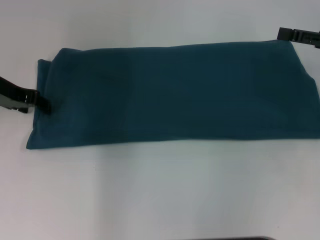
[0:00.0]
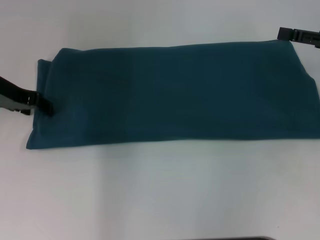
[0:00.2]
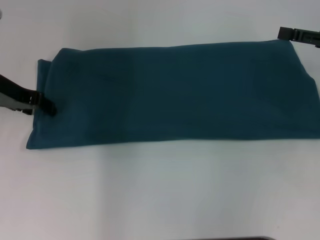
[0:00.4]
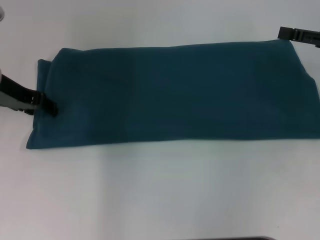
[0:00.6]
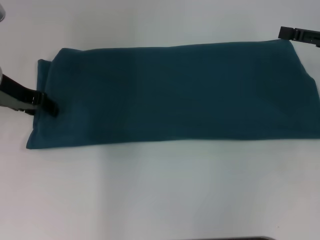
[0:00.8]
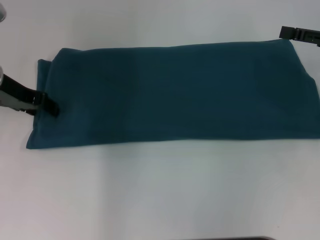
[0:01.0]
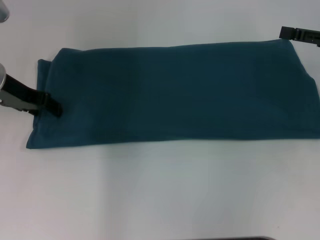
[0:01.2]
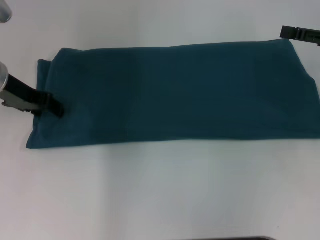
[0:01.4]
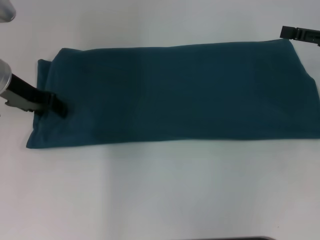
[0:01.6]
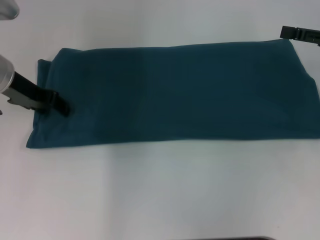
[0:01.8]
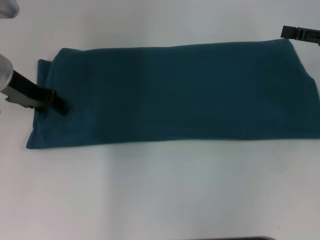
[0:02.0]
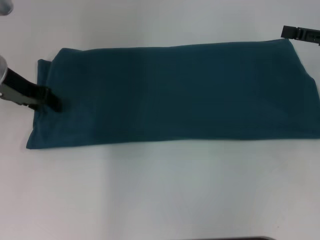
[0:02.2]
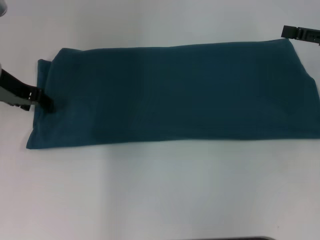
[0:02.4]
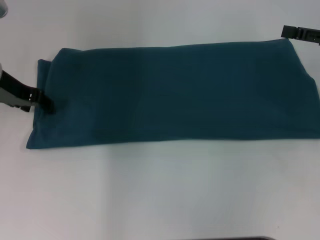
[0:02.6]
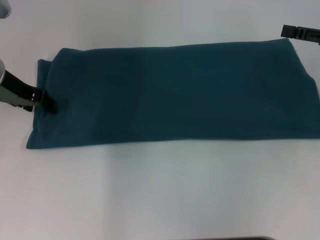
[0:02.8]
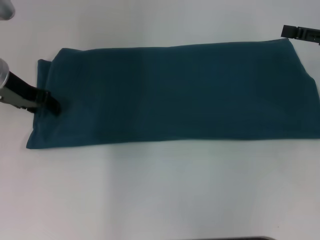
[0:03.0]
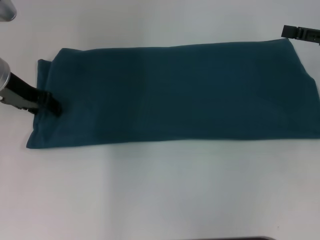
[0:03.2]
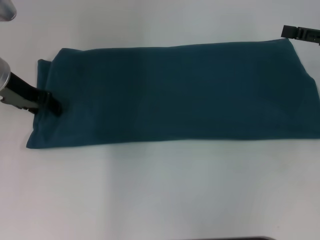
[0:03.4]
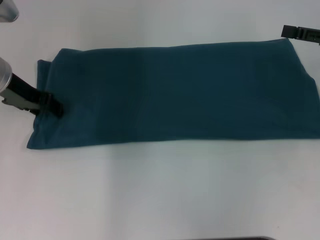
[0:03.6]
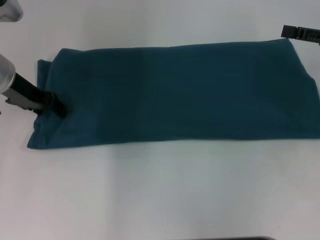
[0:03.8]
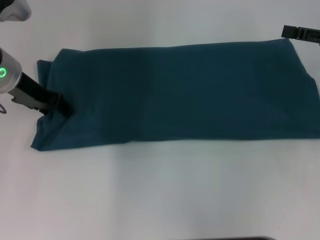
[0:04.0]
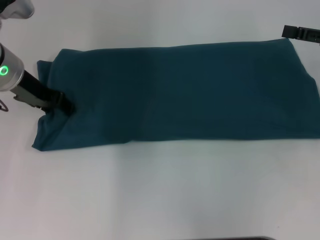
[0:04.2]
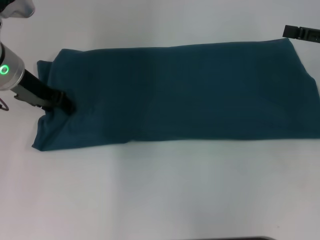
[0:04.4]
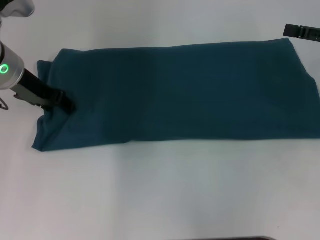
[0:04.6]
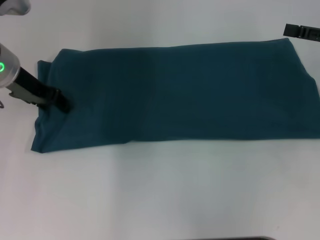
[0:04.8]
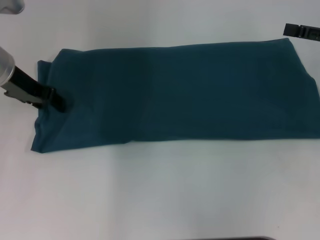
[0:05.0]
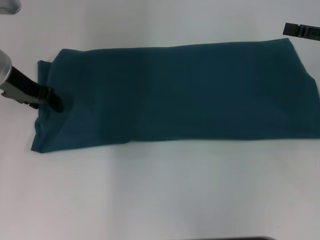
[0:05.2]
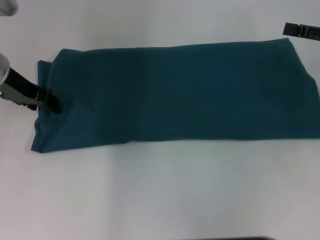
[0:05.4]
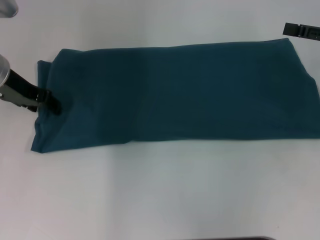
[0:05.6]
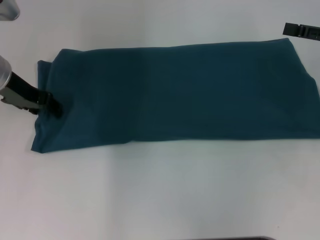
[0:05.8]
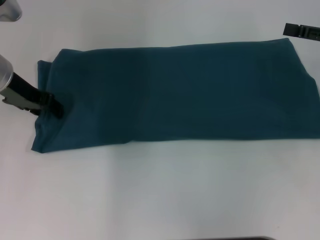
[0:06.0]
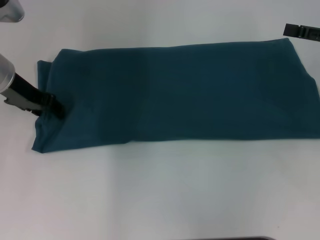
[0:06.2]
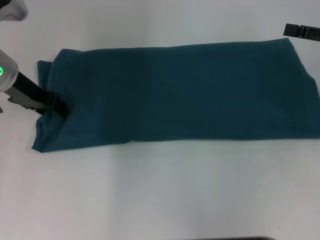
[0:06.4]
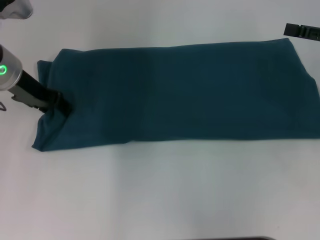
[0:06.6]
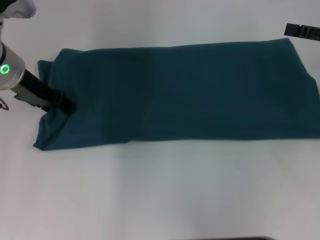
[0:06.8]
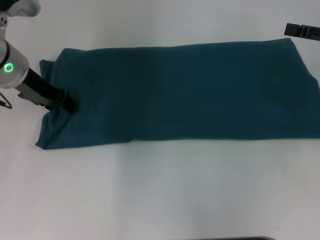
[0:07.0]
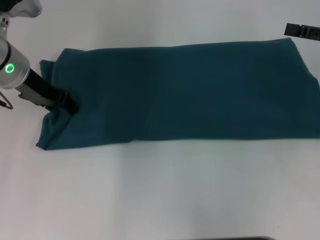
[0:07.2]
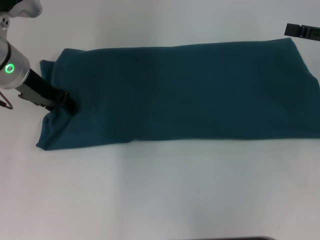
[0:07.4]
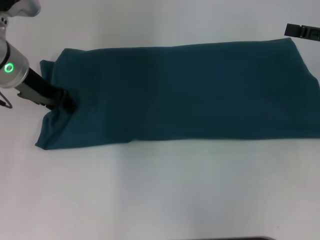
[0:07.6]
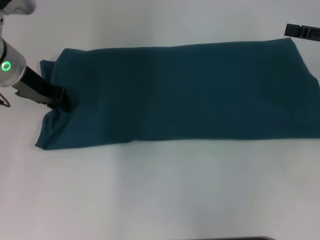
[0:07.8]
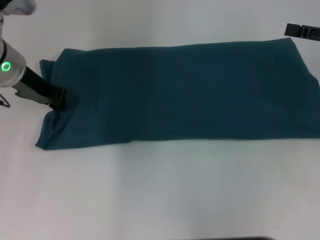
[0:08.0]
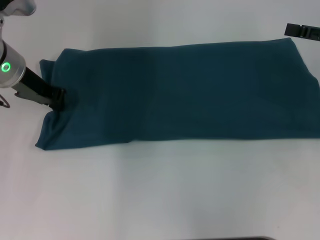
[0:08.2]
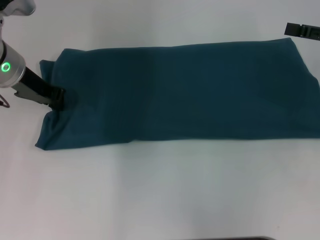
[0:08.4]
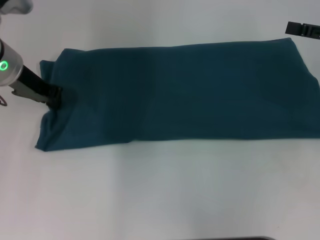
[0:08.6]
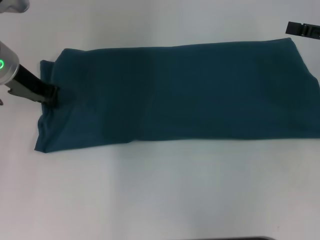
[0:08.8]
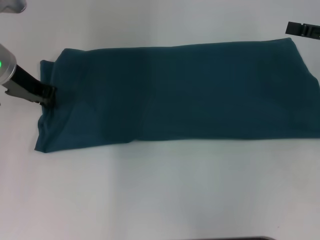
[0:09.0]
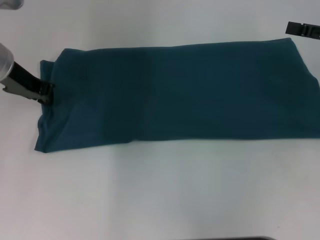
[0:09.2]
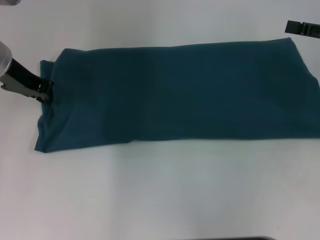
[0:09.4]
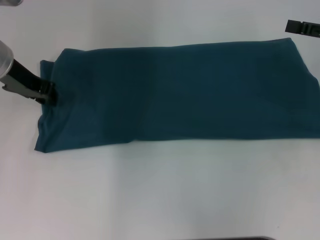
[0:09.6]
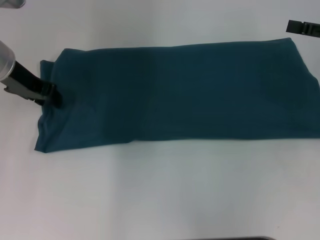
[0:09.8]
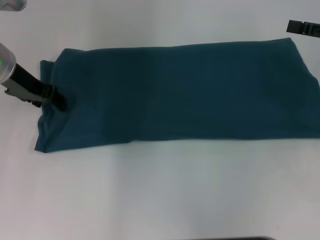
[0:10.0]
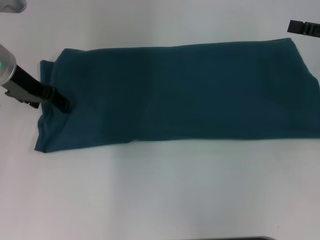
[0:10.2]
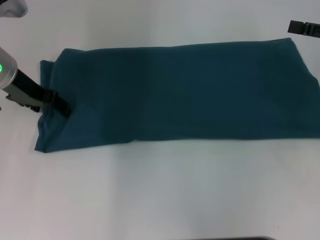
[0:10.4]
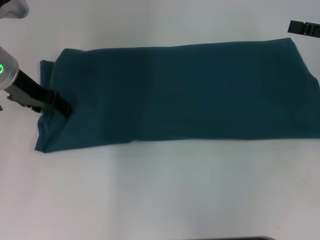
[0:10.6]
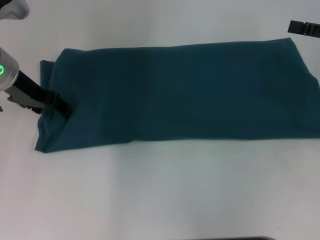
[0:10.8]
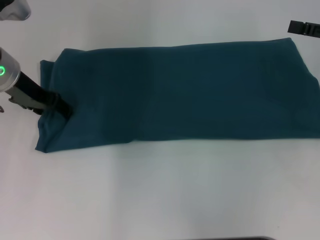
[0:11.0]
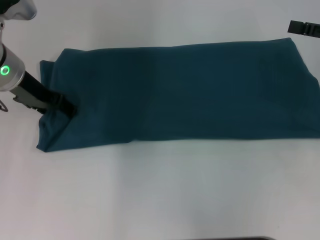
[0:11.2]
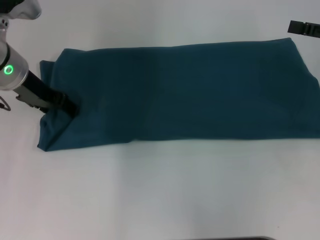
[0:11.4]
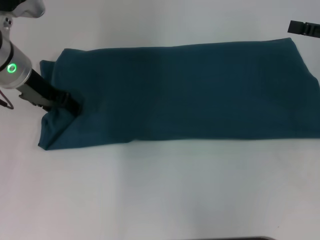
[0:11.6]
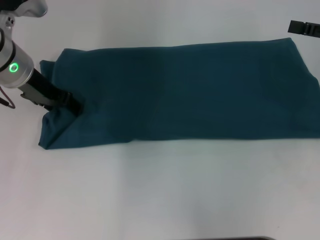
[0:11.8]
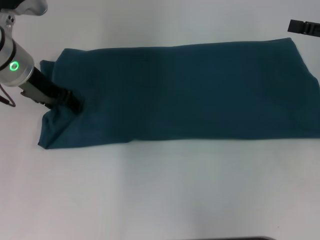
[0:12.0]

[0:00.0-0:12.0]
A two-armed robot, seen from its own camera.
0:00.0 to 0:01.6: The grippers stay close to where they were, moving slightly.
0:01.6 to 0:03.0: Both grippers stay put.
0:03.0 to 0:07.6: The grippers make only small movements.
0:07.6 to 0:09.0: The left gripper closes up.
0:09.0 to 0:10.4: The left gripper opens up.
0:10.4 to 0:12.0: The grippers stay close to where they were, moving slightly.

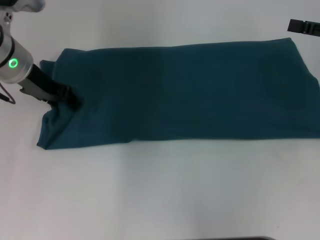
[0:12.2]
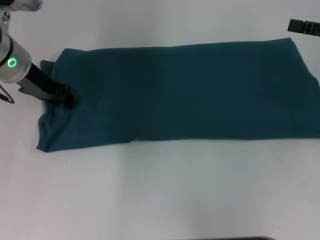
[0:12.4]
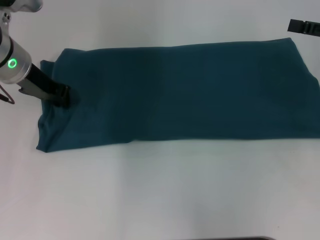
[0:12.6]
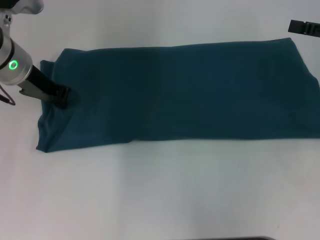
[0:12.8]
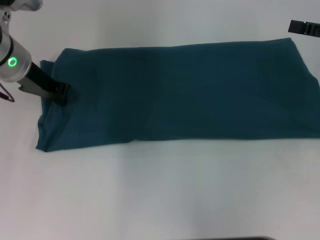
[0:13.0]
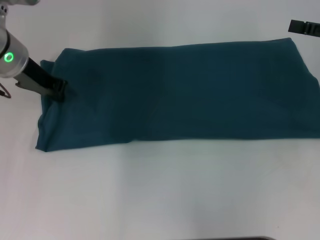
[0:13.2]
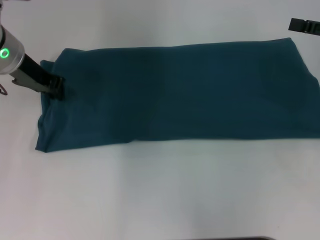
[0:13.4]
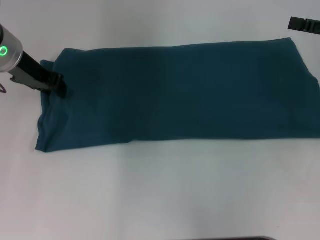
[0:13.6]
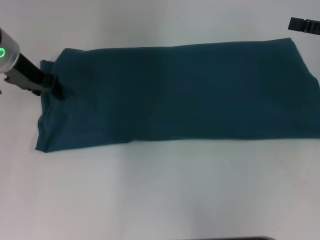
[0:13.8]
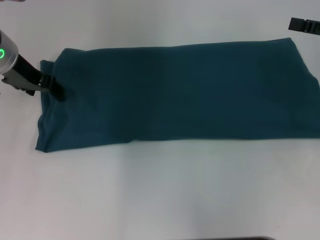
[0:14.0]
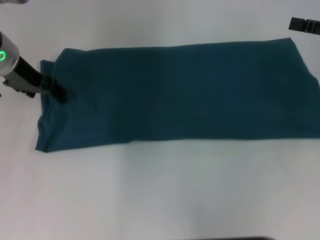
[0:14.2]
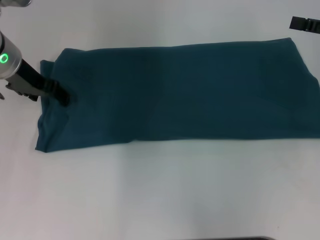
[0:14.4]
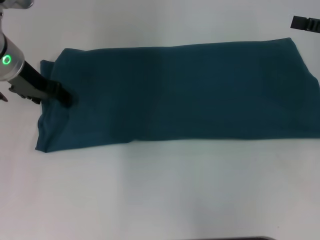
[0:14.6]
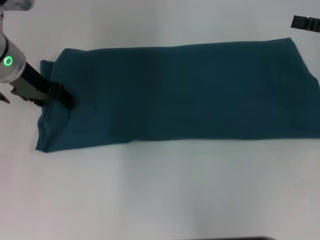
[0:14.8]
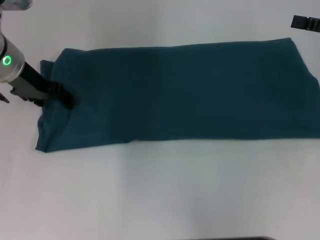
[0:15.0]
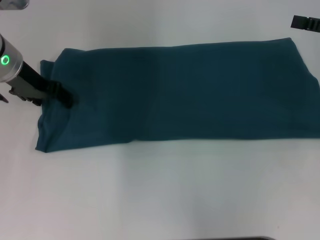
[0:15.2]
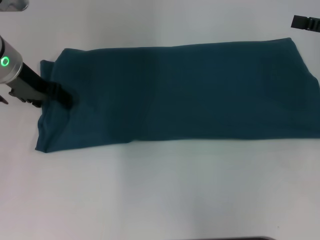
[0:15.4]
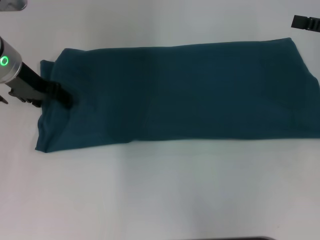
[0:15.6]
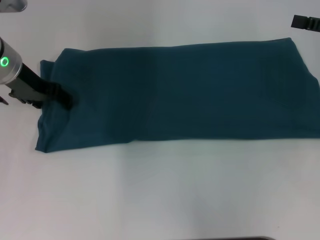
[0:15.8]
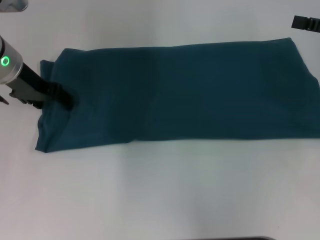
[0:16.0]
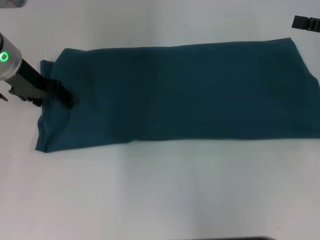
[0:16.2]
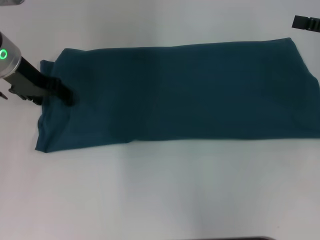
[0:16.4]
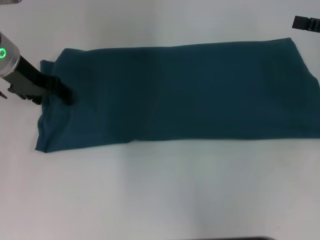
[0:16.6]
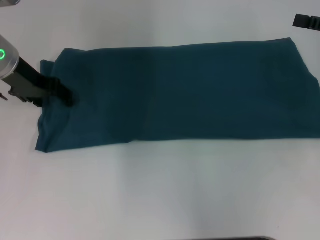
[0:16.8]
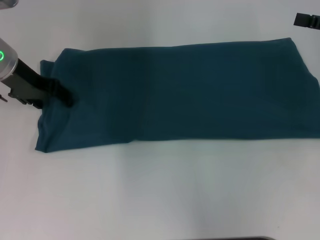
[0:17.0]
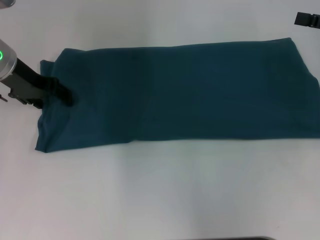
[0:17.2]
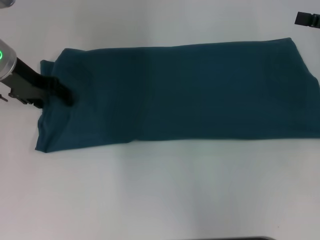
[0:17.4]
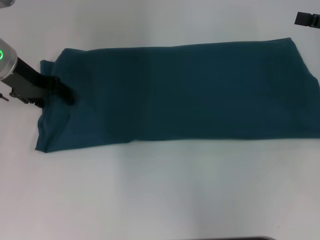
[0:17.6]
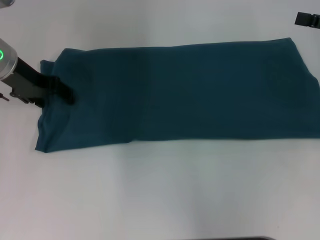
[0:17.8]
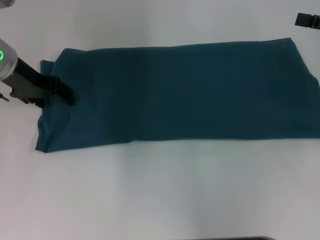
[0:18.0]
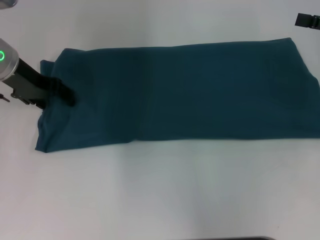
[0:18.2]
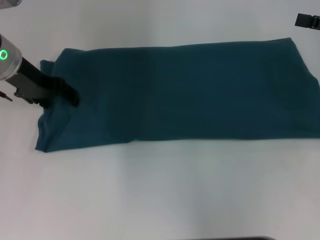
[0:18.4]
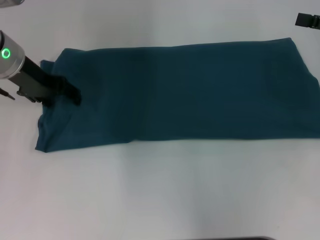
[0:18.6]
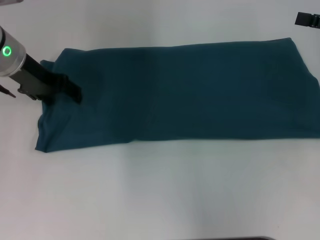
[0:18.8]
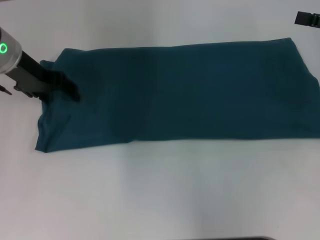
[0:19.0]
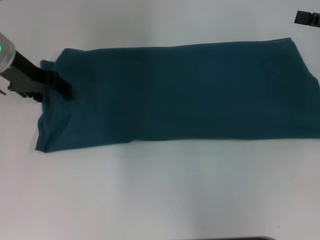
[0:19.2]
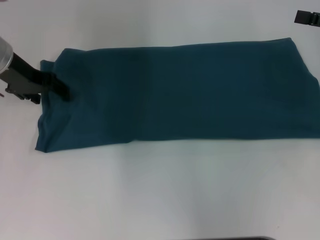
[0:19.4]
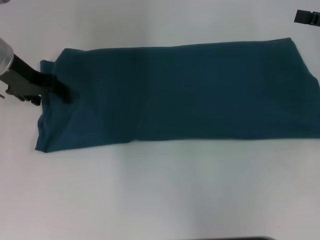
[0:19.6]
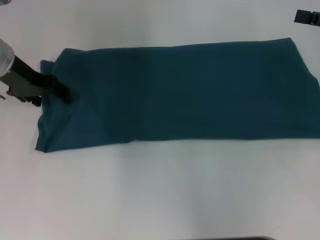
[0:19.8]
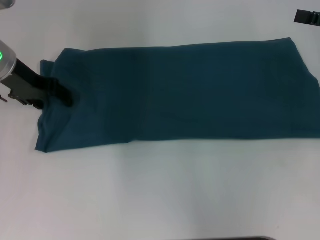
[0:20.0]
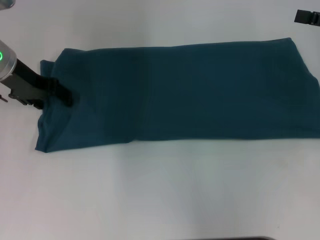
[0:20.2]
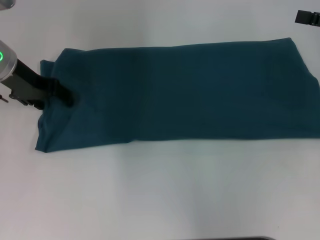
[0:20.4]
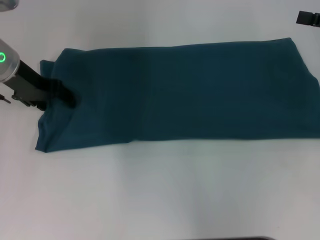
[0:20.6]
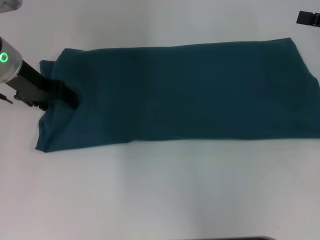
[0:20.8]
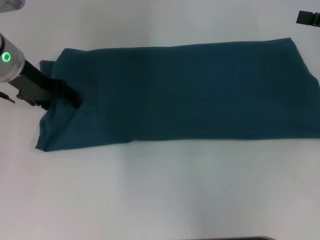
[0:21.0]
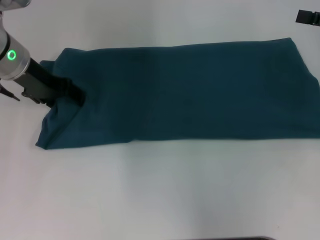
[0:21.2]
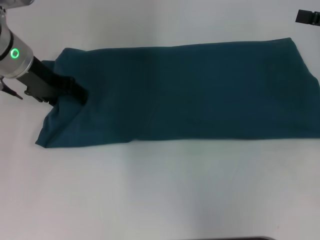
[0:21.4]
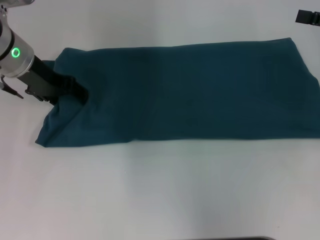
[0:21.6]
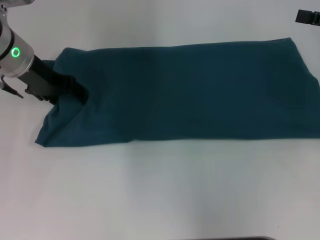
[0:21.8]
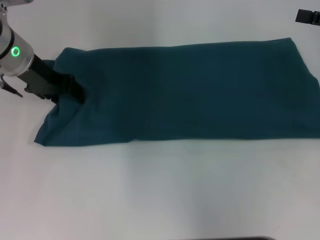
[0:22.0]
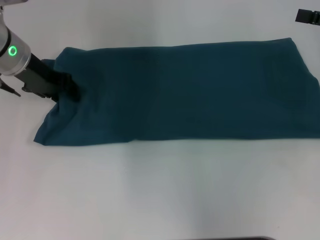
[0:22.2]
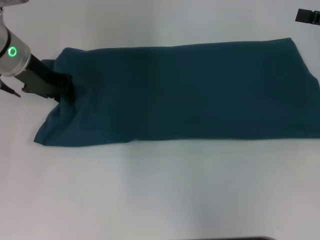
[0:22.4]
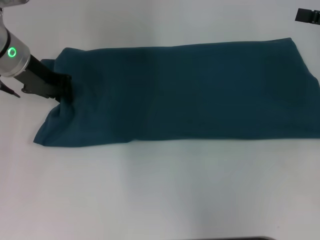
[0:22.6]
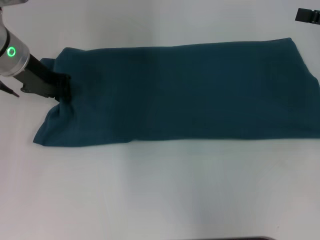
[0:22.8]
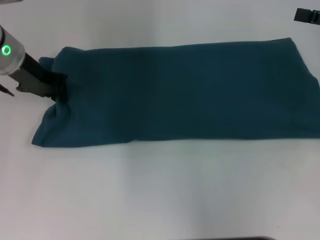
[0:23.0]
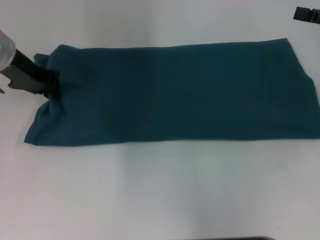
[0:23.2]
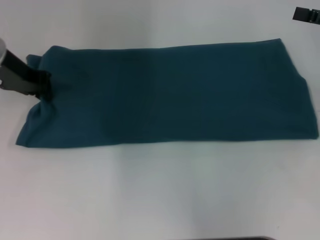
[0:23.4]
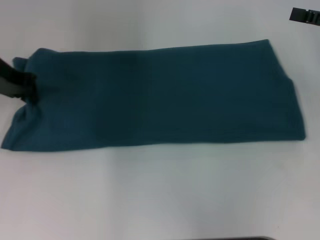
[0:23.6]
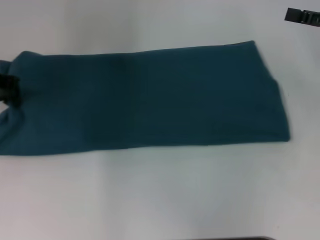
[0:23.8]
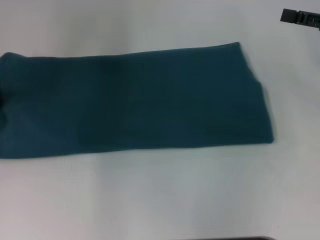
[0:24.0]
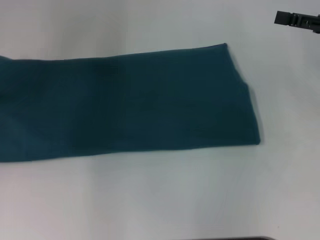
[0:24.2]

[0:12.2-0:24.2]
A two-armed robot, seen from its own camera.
0:12.2 to 0:13.8: The left gripper closes up.
0:13.8 to 0:15.2: The left gripper opens up.
0:15.2 to 0:16.6: Neither gripper changes place.
0:16.6 to 0:18.2: The grippers move only a little.
0:18.2 to 0:19.8: The two grippers keep their place.
0:19.8 to 0:21.2: The grippers make only small movements.
0:21.2 to 0:22.6: The left gripper closes up.
0:22.6 to 0:24.2: The left gripper goes approximately 10 cm to the left.
